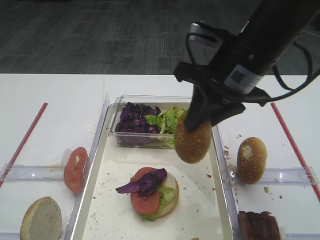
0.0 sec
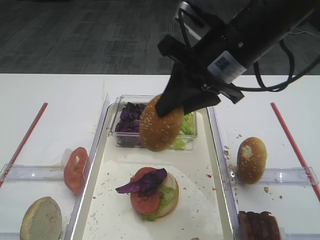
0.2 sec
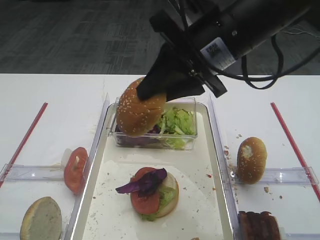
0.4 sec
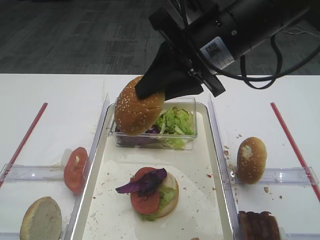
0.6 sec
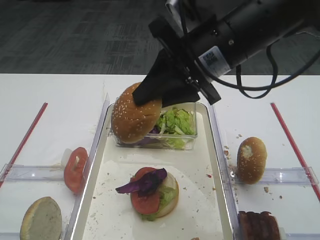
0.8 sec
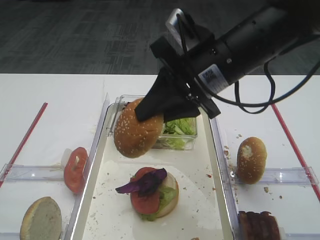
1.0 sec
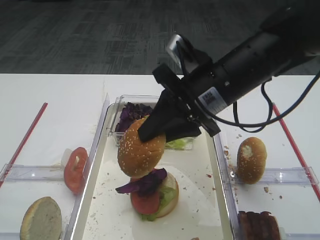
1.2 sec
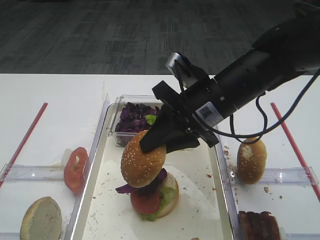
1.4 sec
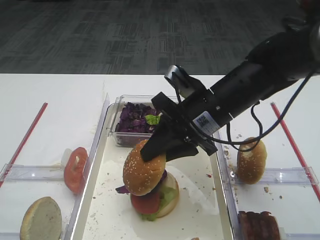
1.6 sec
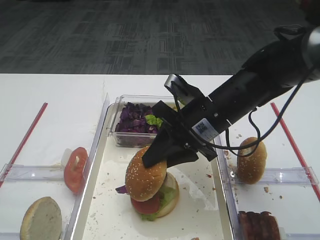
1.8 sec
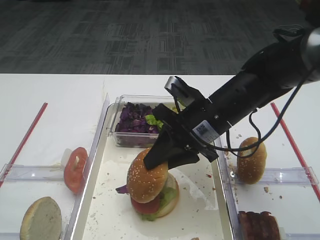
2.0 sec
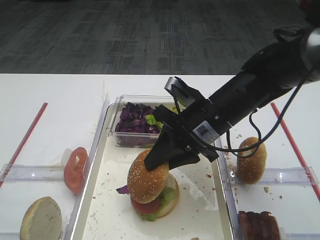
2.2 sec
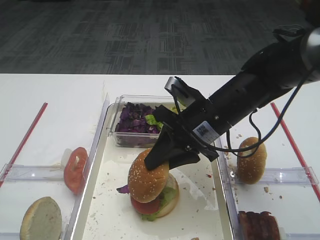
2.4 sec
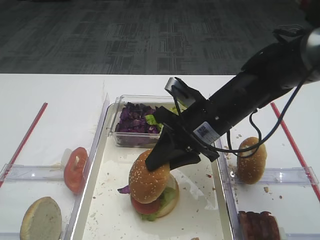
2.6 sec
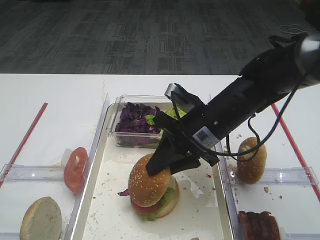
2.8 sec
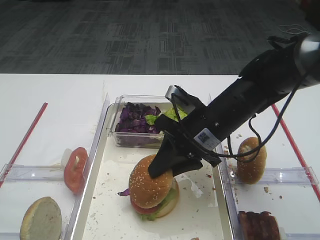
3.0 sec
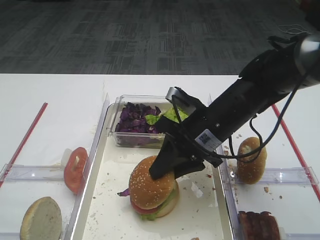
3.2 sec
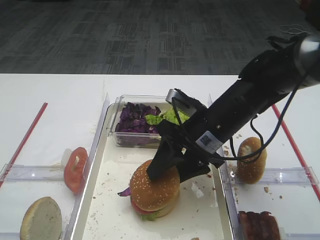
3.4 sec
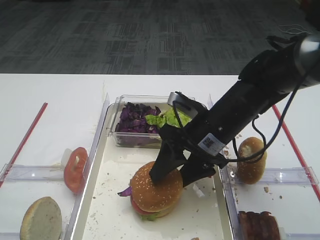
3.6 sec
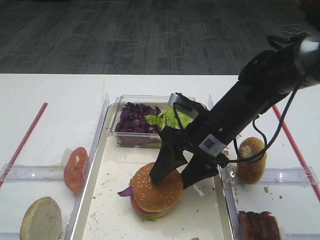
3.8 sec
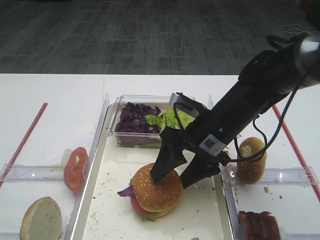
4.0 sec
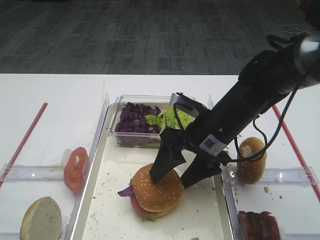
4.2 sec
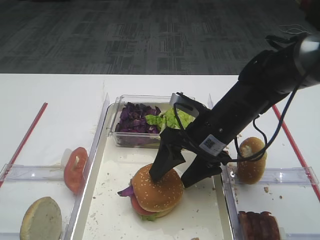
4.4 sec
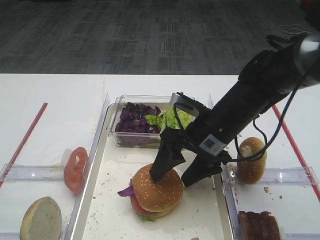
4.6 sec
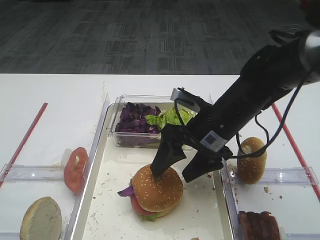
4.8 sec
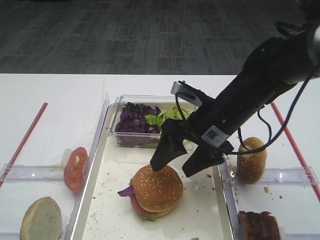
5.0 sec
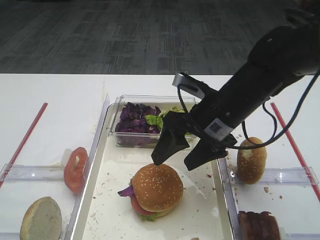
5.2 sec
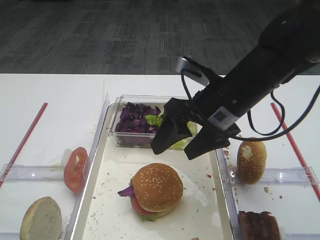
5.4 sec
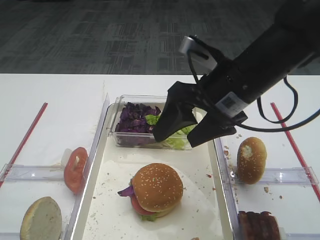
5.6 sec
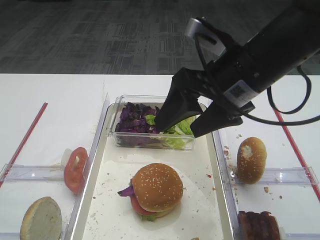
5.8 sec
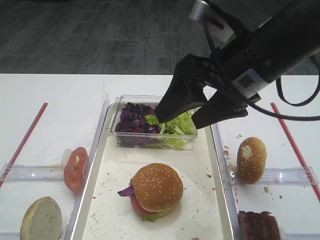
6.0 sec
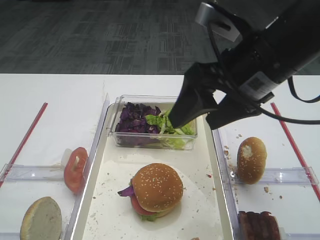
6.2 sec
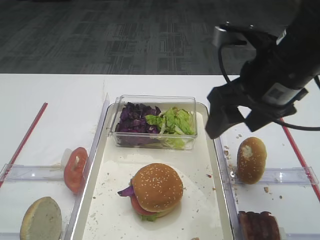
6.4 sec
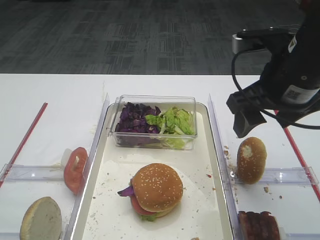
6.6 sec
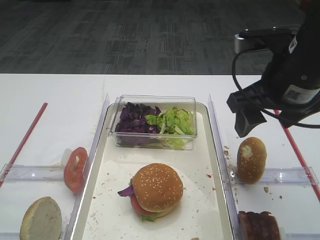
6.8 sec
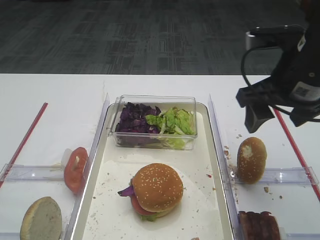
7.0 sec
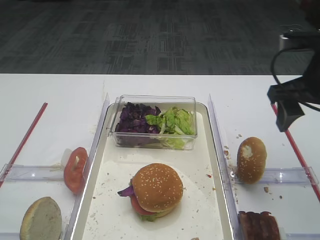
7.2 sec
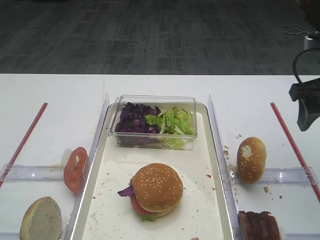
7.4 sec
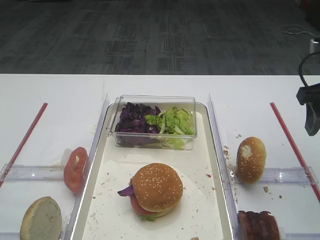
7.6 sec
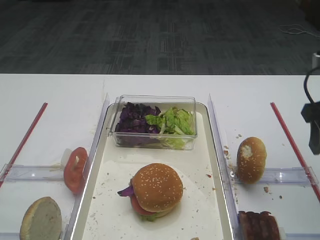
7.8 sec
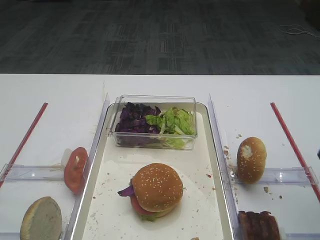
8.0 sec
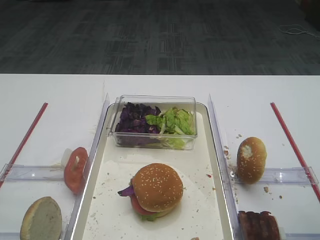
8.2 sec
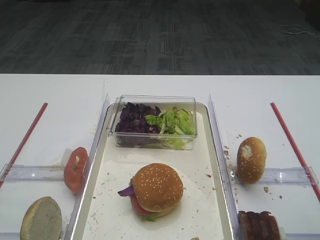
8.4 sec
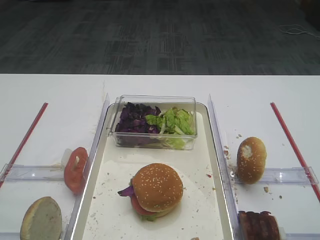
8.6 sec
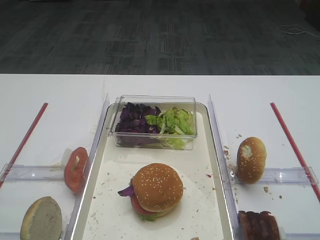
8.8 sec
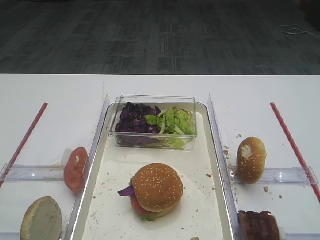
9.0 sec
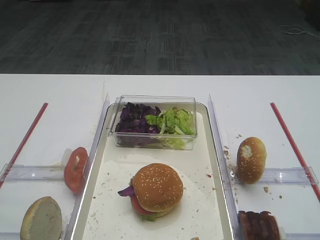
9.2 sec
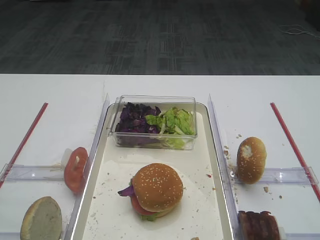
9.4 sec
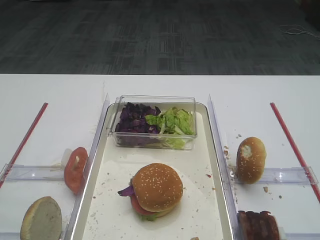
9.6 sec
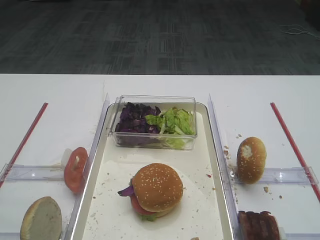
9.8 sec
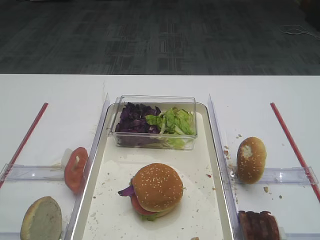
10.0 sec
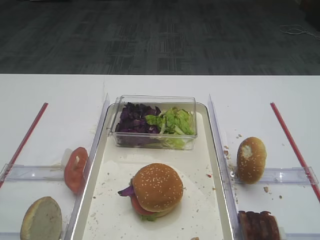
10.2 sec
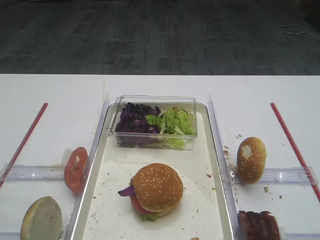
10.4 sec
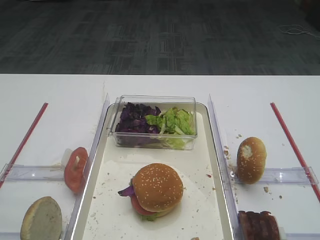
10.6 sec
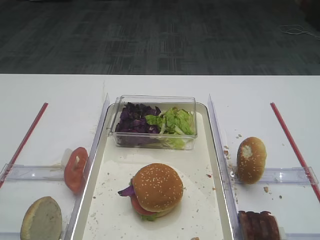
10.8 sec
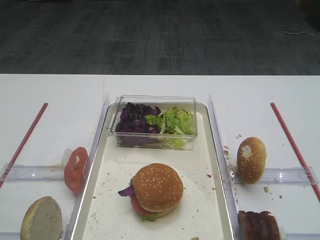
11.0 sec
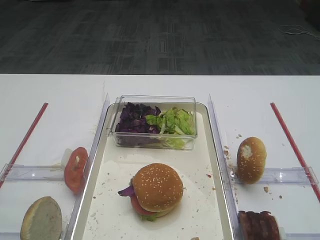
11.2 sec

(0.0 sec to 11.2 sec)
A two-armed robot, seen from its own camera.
Step, 0.0 sec - 5.2 sec: Place the hamburger lid on the purple cabbage with the right gripper.
0.0 sec - 1.6 sec: The right gripper is displaced downward by about 10 cm.
1.6 sec - 3.2 sec: The grippers stay close to where they were, moving slightly.
3.2 sec - 4.8 sec: The right gripper opens its fingers.
4.8 sec - 6.4 sec: The right gripper is displaced upward and to the right by about 15 cm.
6.4 sec - 8.0 sec: The right gripper goes roughly 15 cm to the right and backward.
8.0 sec - 9.6 sec: The right gripper travels backward by roughly 20 cm.
9.6 sec - 11.2 sec: The two grippers keep their place.

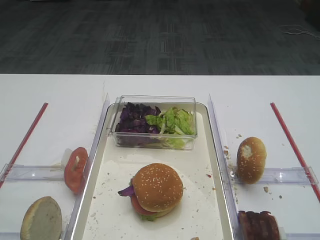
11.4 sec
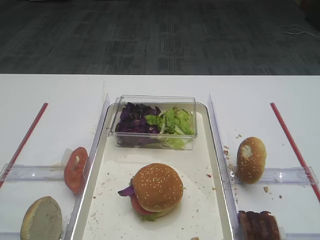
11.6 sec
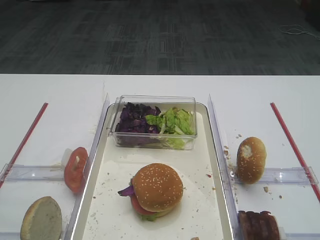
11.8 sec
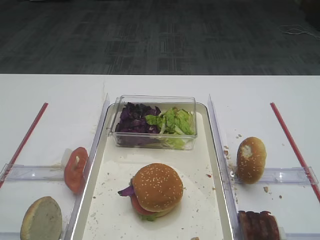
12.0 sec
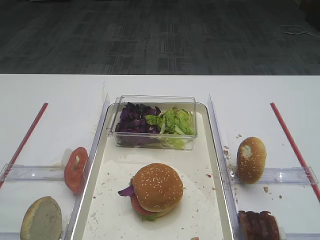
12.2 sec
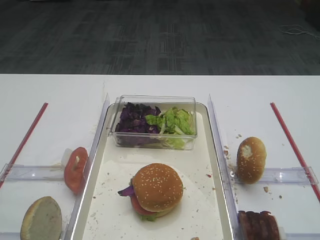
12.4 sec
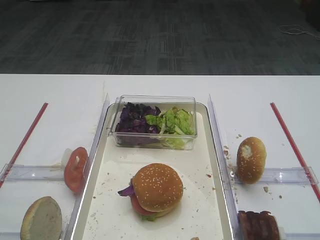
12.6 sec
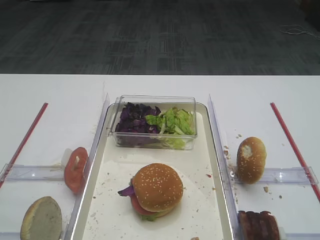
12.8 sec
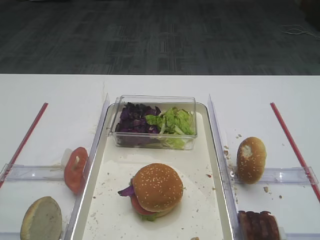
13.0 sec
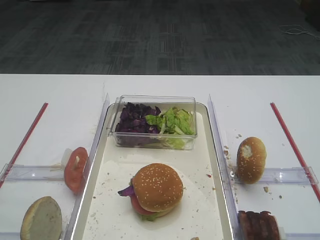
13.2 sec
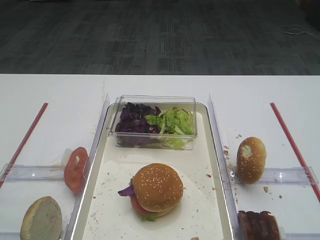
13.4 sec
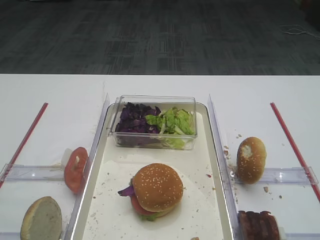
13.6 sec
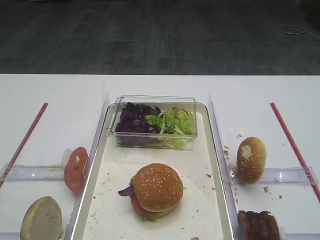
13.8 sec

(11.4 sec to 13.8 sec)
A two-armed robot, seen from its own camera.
11.4 sec - 13.8 sec: Both grippers stay put.

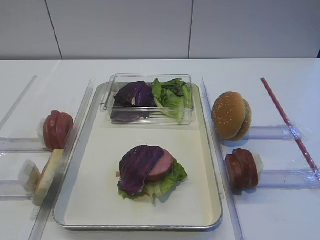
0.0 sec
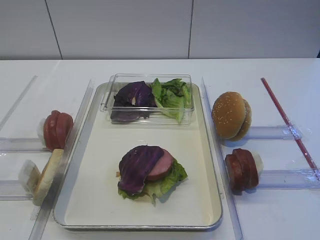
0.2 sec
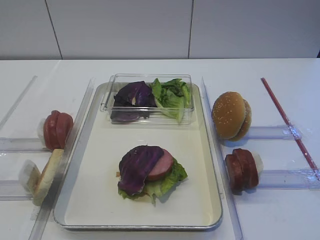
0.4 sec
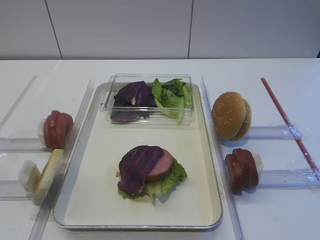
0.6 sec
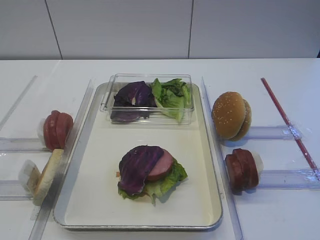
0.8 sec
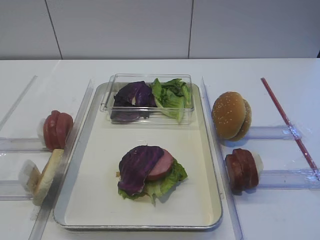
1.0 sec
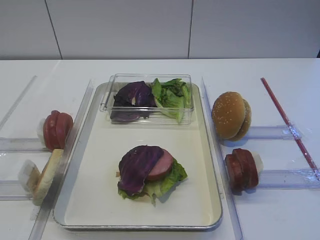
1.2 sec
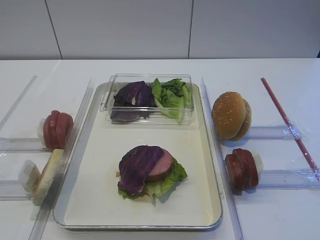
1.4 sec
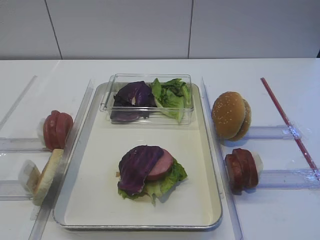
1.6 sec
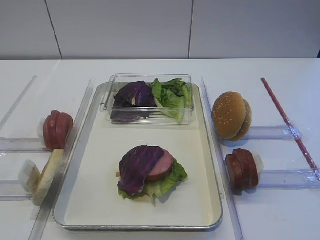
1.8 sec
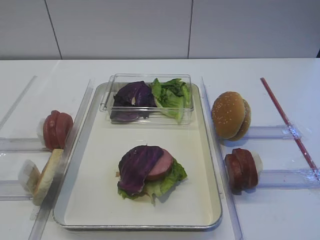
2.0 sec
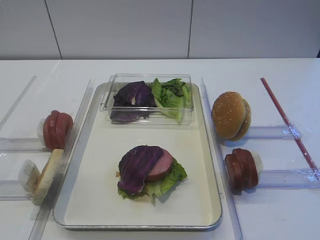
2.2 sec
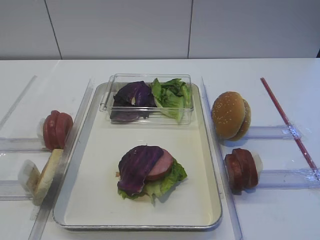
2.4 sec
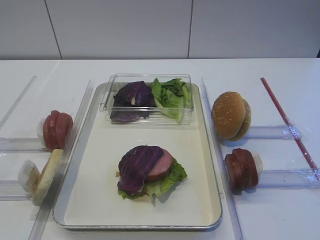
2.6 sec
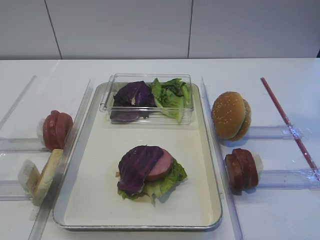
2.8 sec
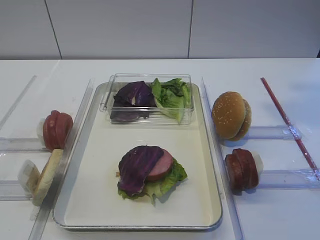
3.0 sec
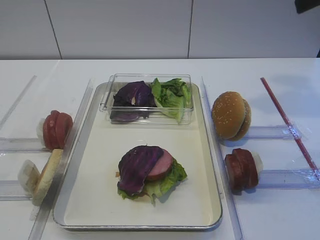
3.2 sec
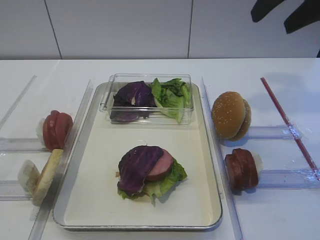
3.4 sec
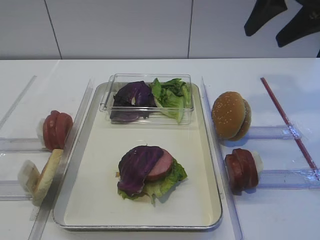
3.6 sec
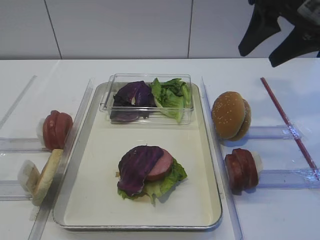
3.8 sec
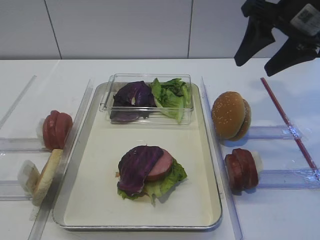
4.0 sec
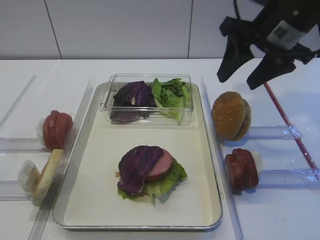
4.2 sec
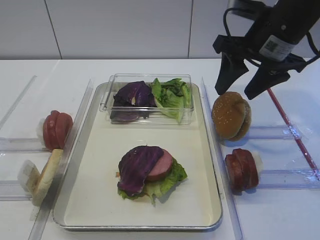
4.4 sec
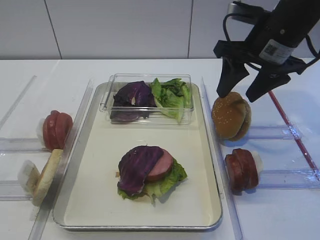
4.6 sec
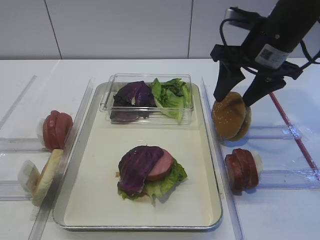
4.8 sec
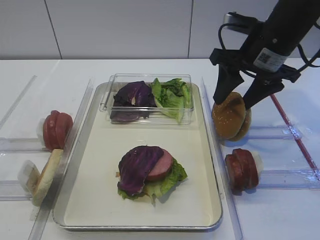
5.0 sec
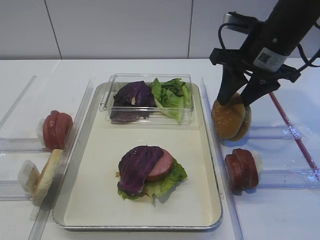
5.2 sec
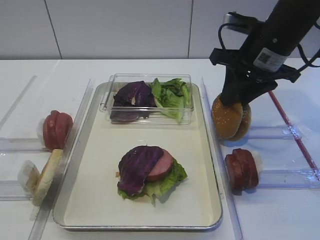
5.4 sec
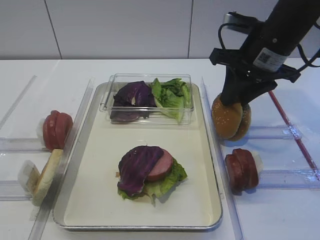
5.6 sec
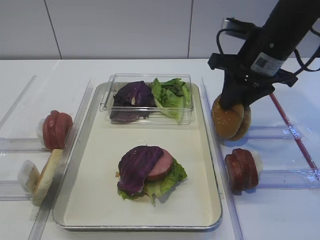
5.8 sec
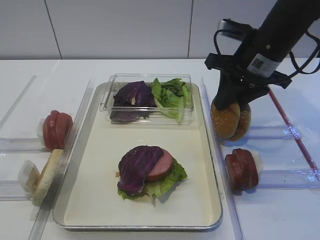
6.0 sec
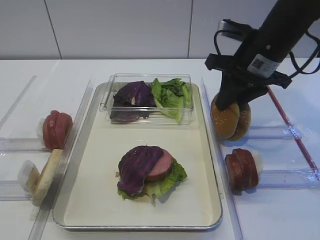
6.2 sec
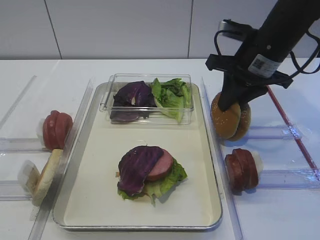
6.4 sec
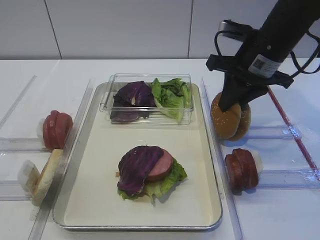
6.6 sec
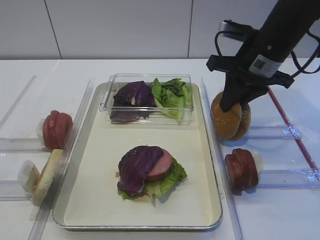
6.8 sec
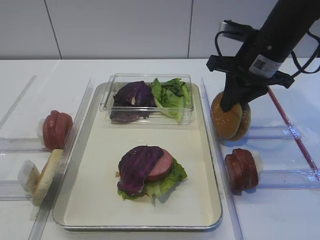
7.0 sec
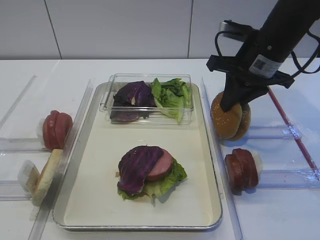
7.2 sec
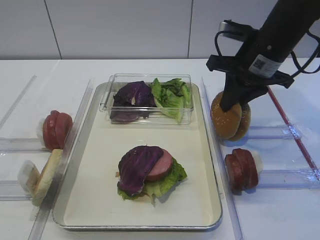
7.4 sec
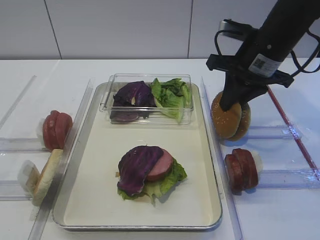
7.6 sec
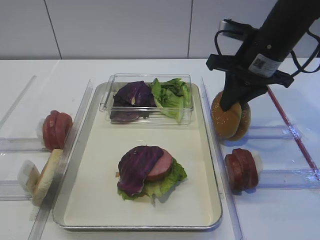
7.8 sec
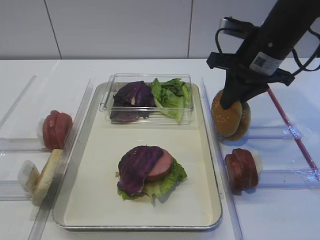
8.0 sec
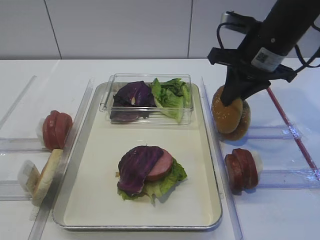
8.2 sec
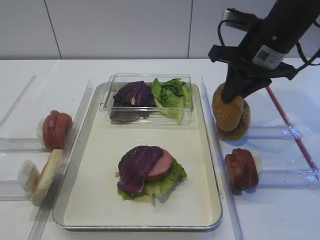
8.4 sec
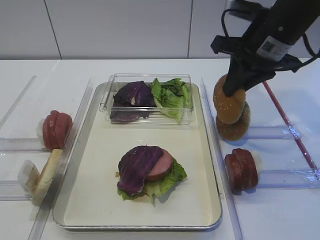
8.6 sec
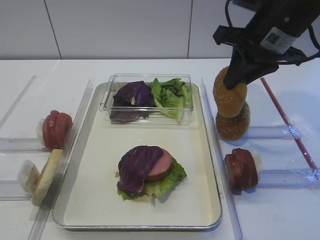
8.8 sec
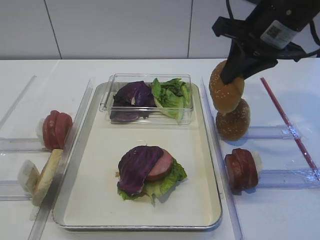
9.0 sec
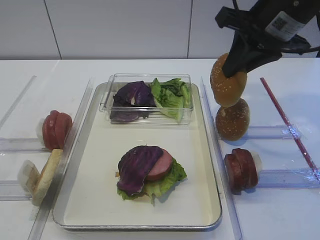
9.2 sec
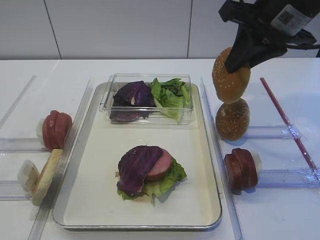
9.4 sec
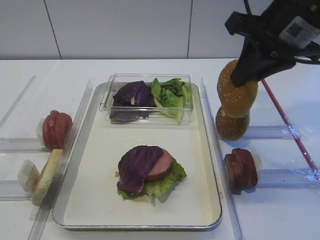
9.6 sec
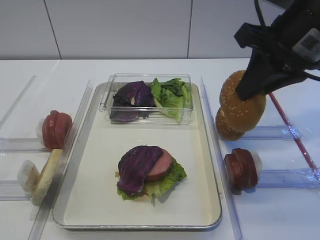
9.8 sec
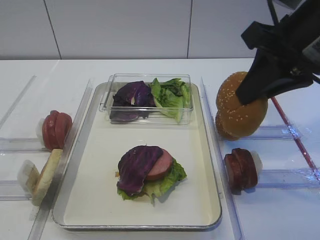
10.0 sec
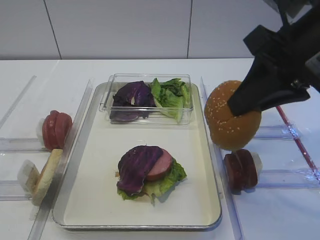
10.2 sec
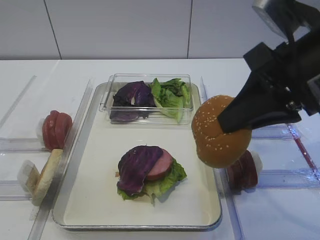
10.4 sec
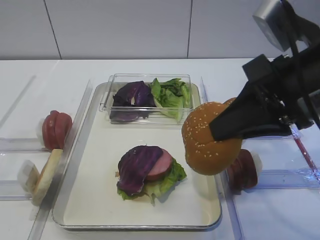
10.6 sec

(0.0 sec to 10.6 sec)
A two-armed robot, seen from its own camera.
Step, 0.0 sec - 9.0 sec: Pick up the hamburger lid with the right gripper.
3.0 sec - 4.6 sec: The right gripper heads downward and forward, covering some 20 cm.
4.6 sec - 6.0 sec: The right gripper closes its fingers.
6.0 sec - 7.6 sec: Both grippers stay put.
7.6 sec - 9.0 sec: The right gripper moves upward, approximately 5 cm.
9.0 sec - 10.6 sec: The right gripper is displaced backward by some 15 cm.
